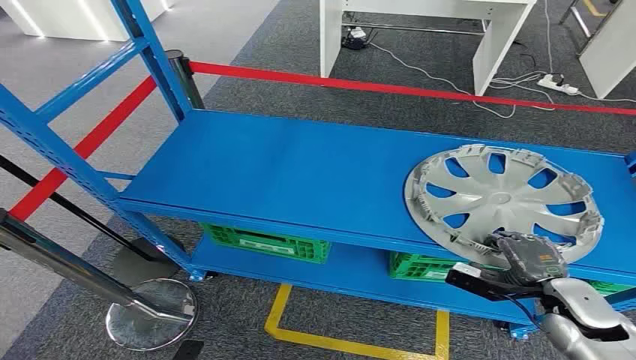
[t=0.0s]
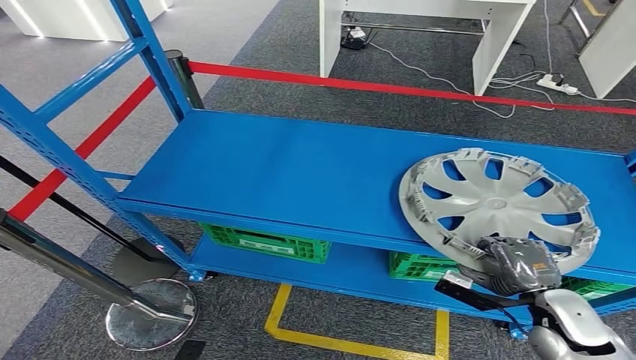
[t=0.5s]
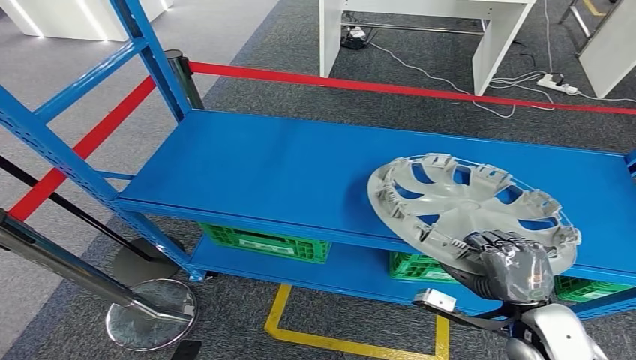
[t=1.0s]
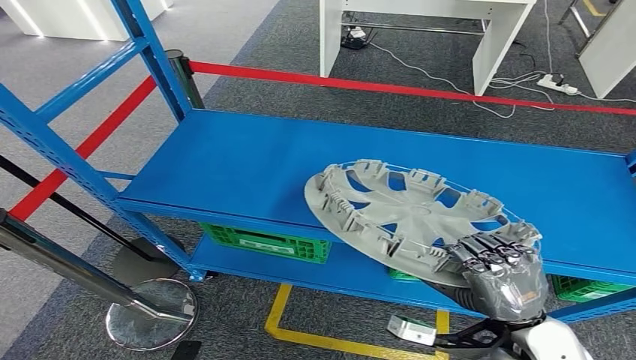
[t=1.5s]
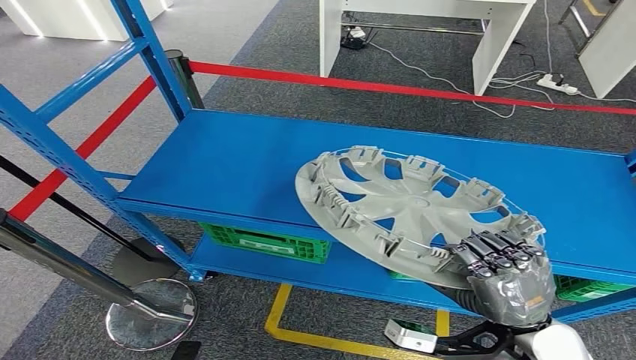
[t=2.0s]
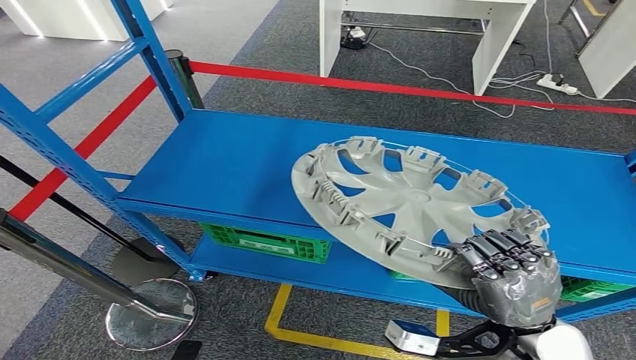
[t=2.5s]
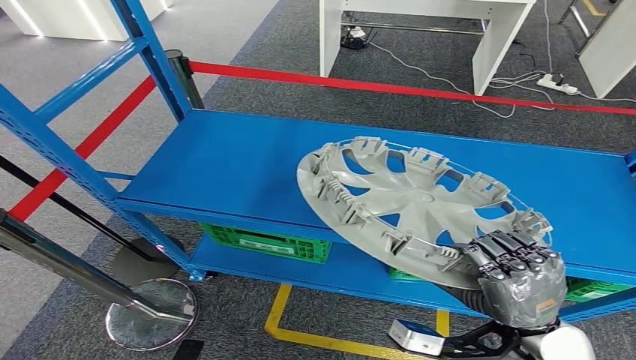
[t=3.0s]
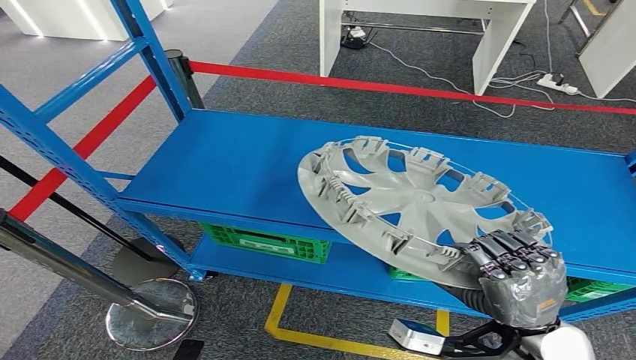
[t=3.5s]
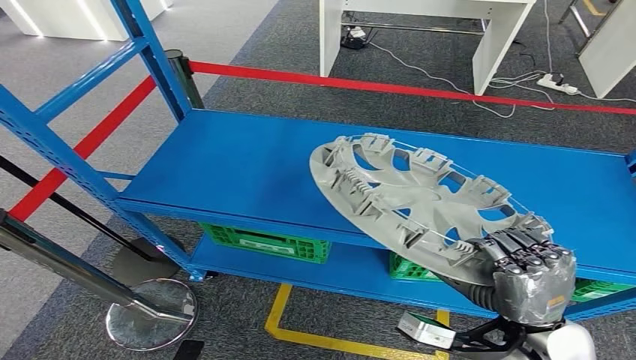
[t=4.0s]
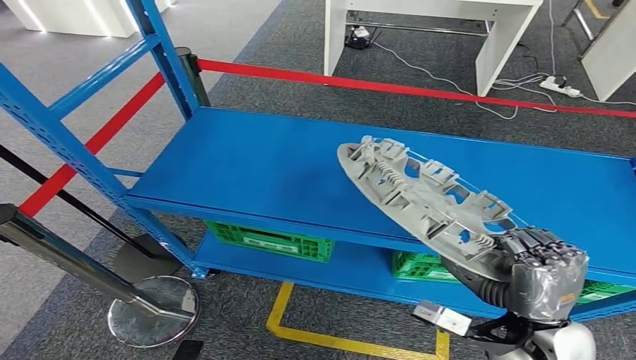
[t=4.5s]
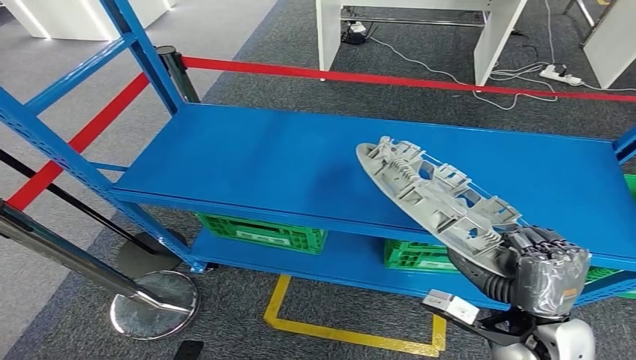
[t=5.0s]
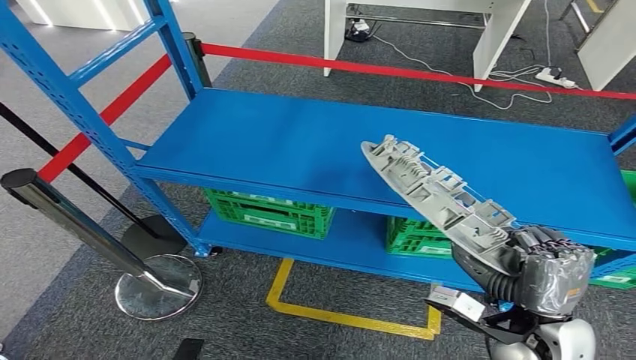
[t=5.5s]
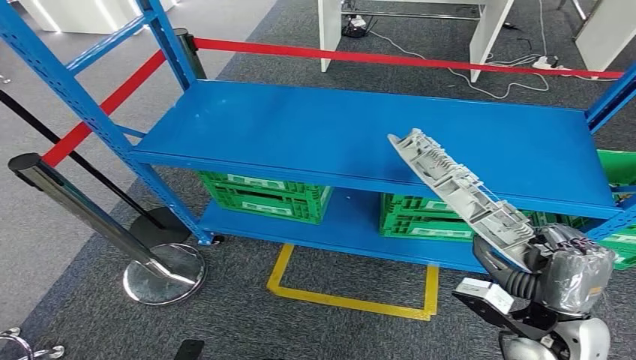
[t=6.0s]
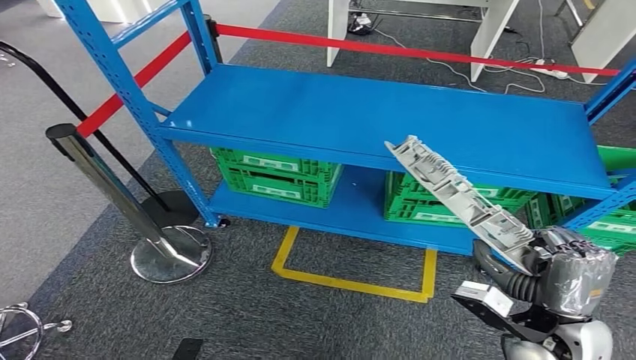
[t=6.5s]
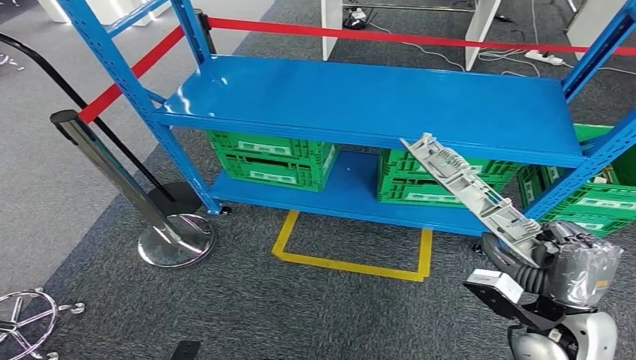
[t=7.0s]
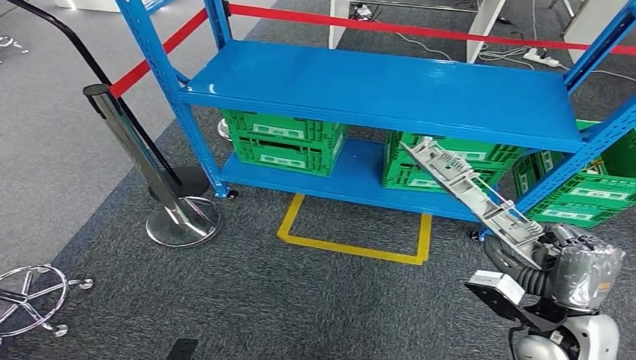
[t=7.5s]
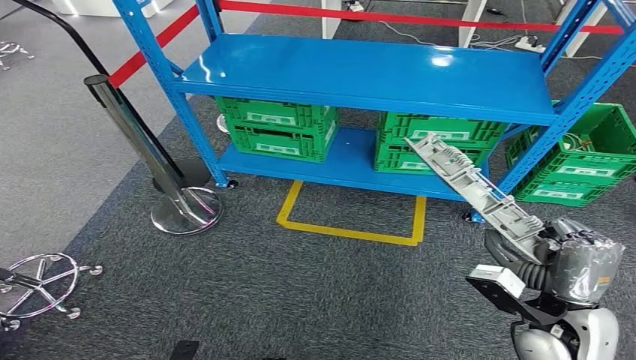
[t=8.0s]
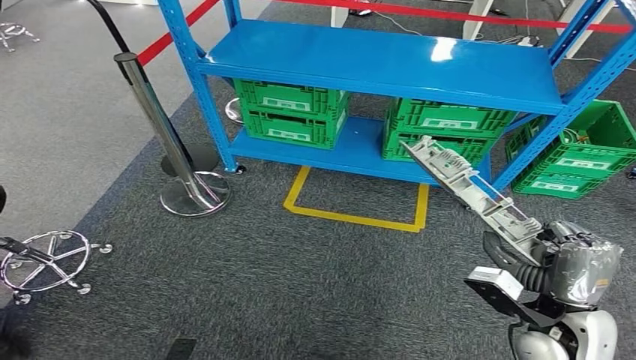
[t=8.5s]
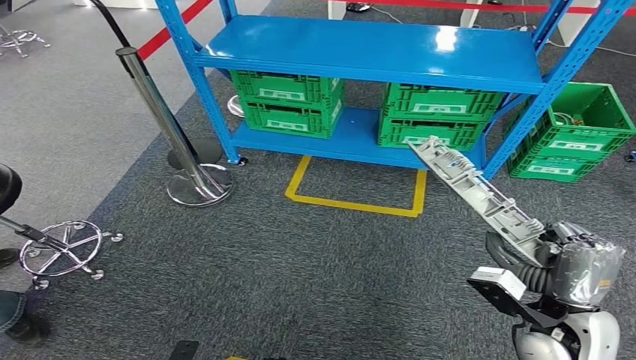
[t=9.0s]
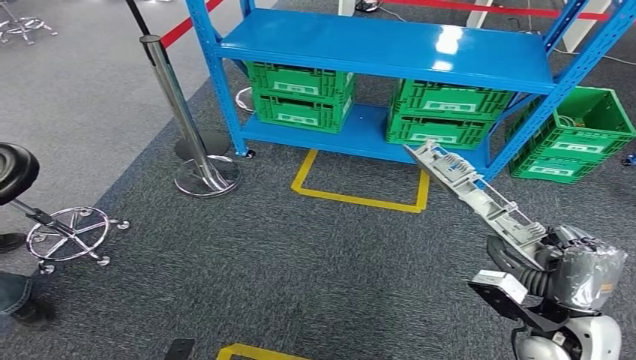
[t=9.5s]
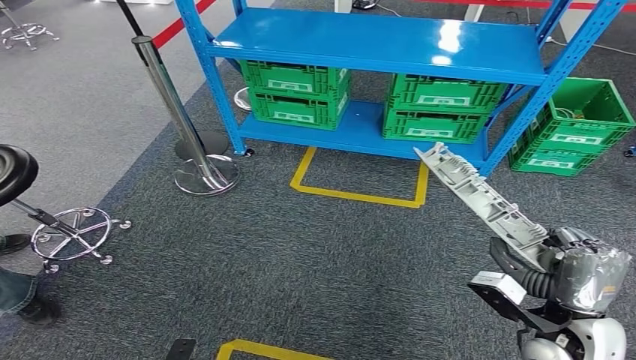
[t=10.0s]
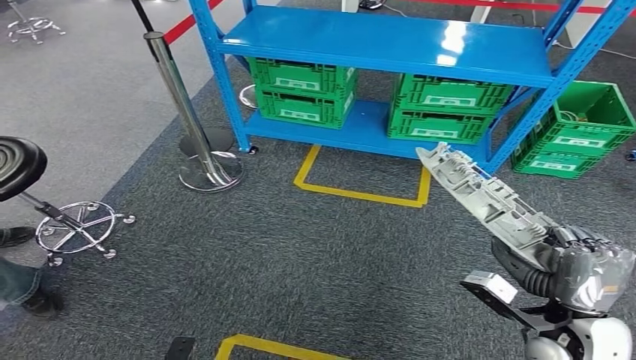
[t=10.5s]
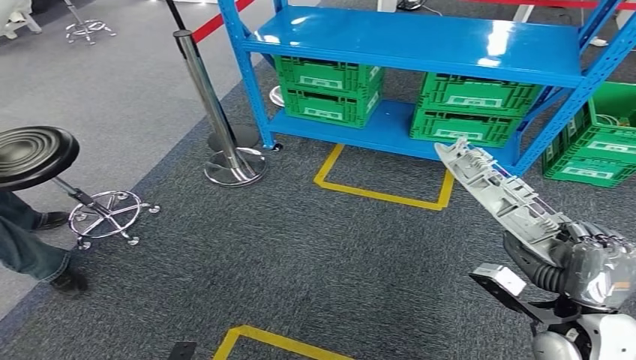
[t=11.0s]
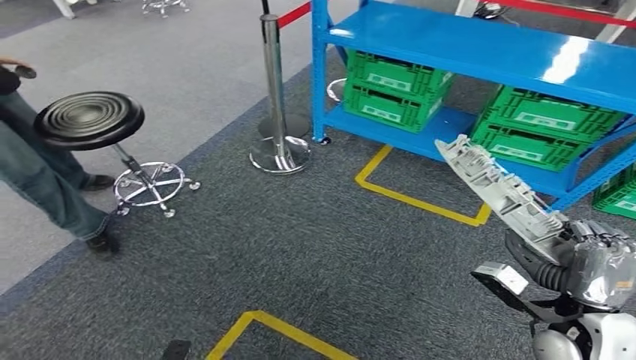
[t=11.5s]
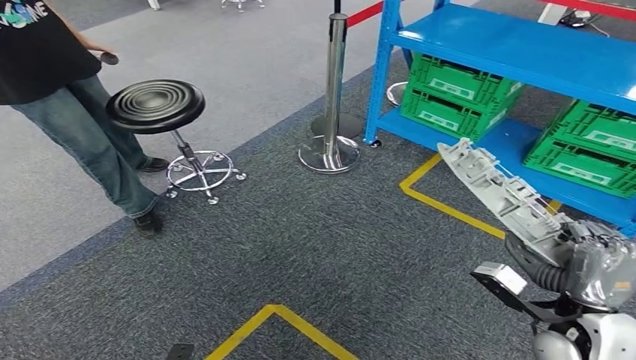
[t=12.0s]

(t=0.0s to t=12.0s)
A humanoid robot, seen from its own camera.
Step, t=0.0s - t=4.5s: Pick up the small component from the shelf.
t=2.0s - t=4.0s: The hands move only a little.

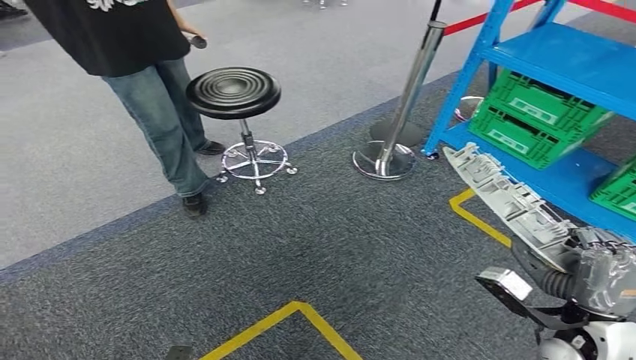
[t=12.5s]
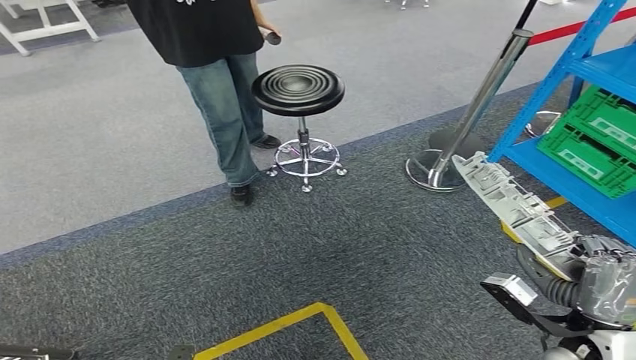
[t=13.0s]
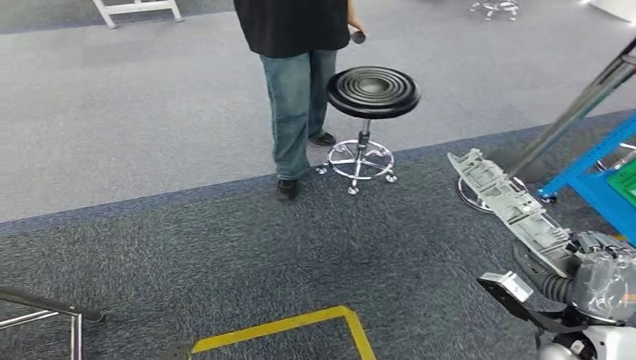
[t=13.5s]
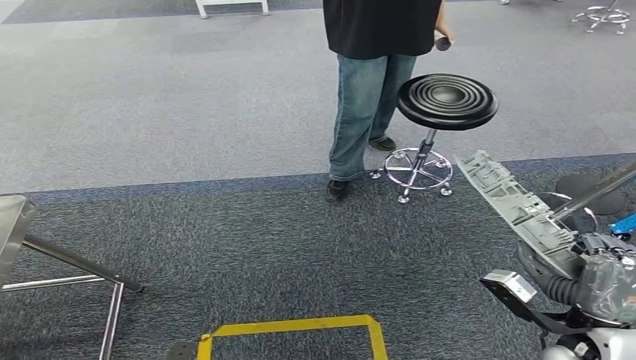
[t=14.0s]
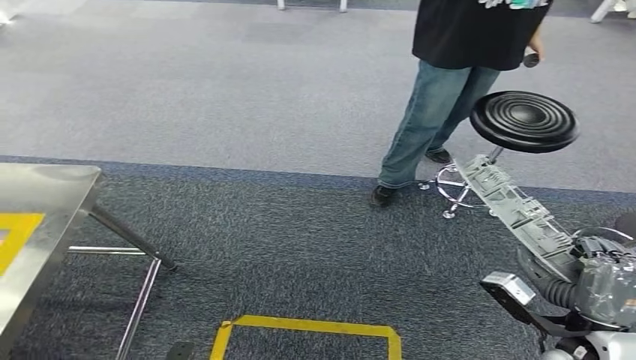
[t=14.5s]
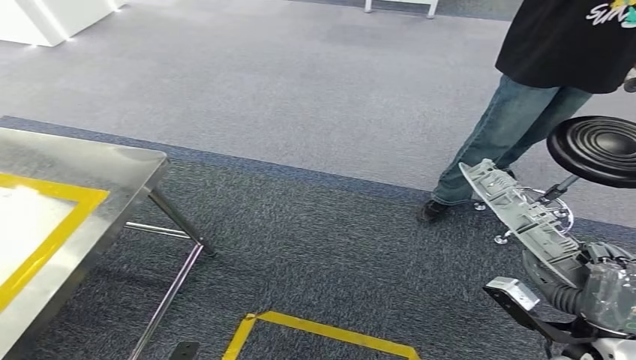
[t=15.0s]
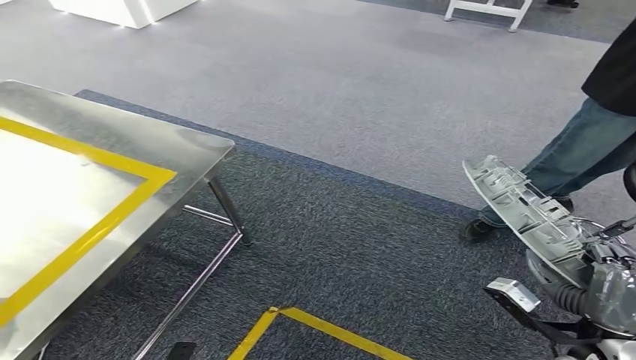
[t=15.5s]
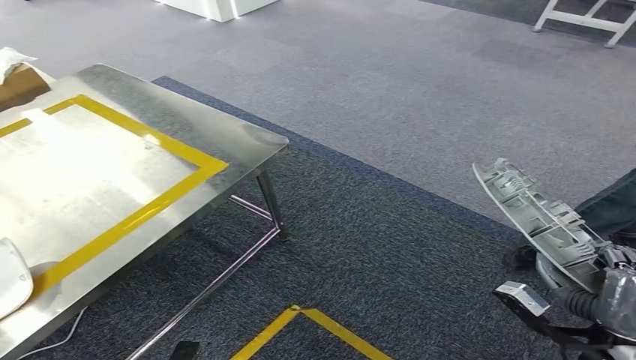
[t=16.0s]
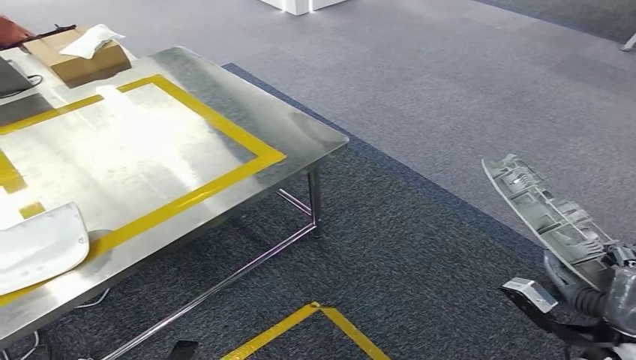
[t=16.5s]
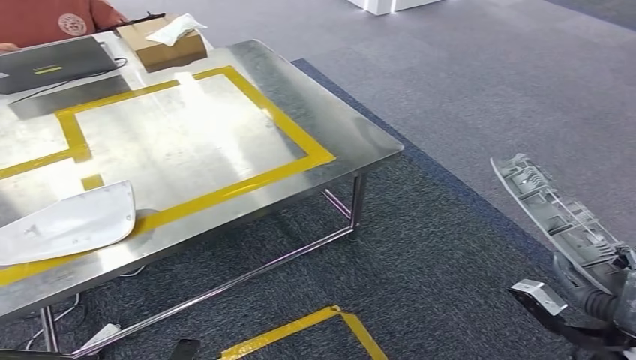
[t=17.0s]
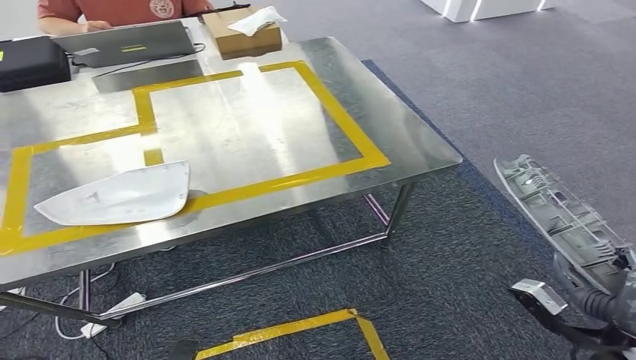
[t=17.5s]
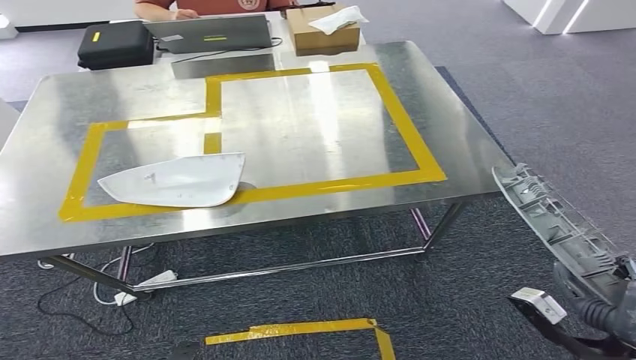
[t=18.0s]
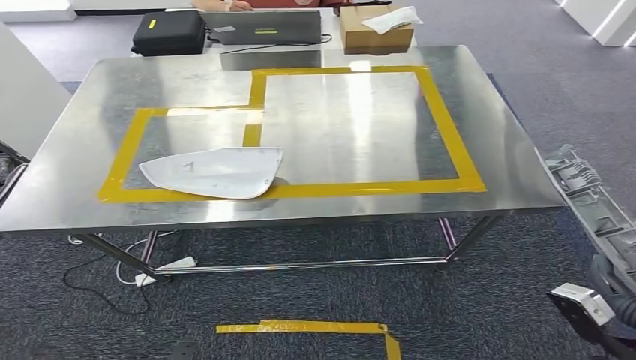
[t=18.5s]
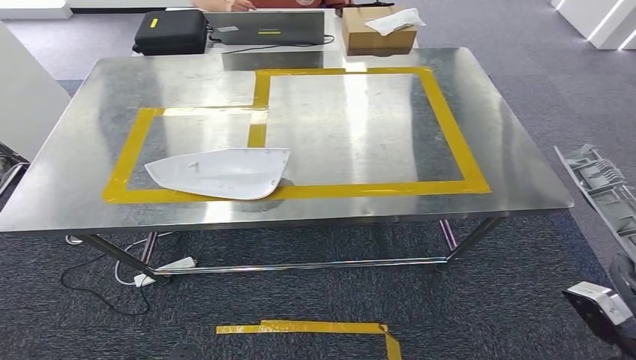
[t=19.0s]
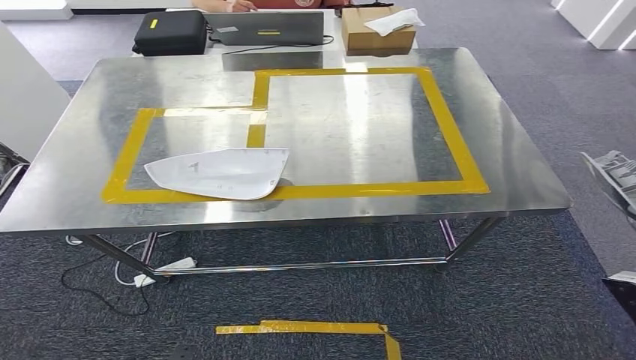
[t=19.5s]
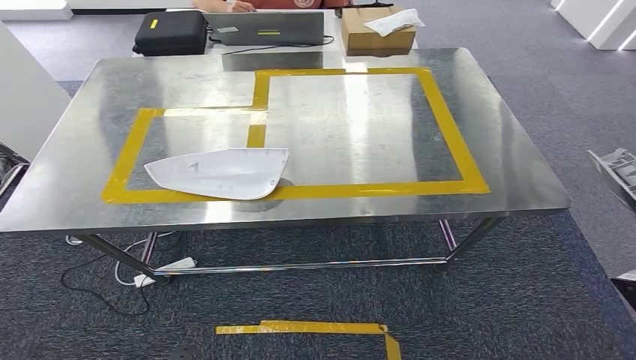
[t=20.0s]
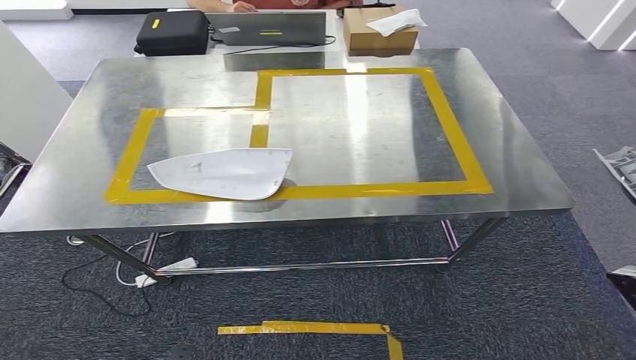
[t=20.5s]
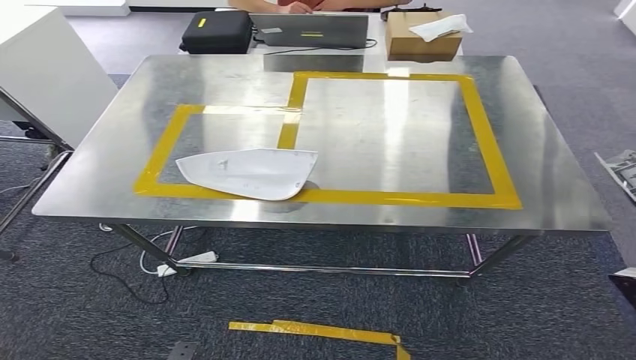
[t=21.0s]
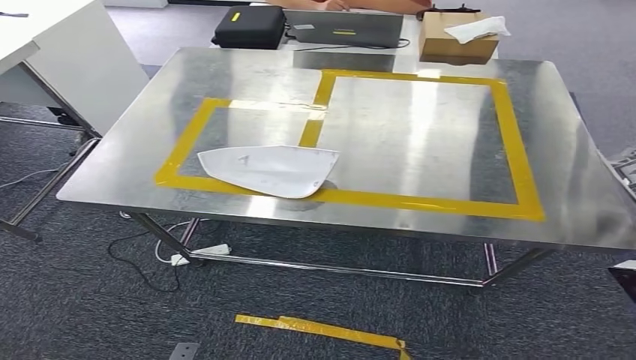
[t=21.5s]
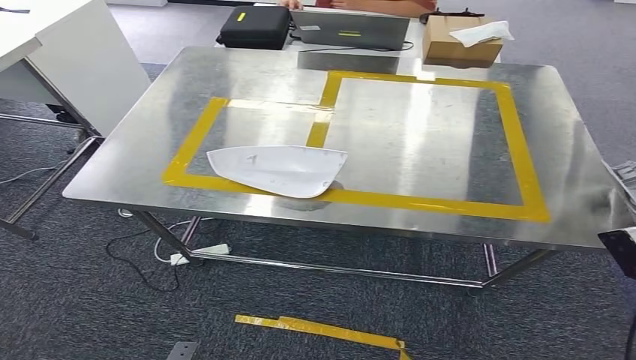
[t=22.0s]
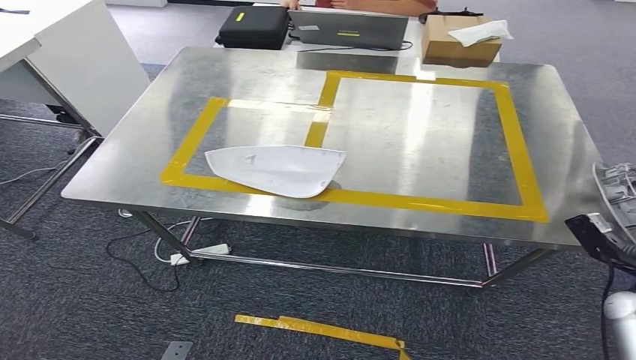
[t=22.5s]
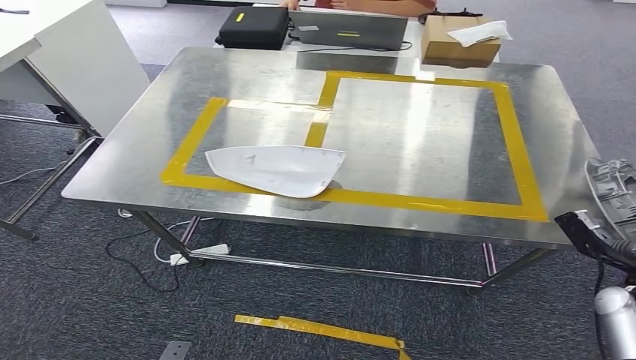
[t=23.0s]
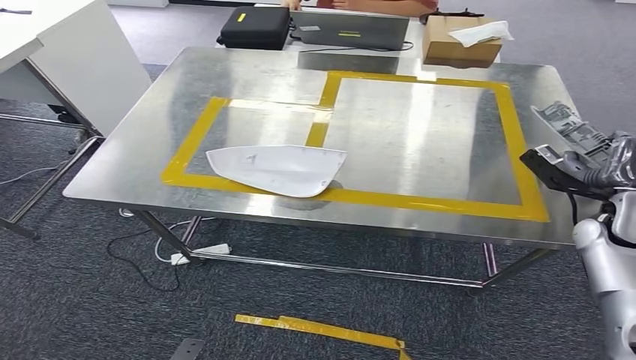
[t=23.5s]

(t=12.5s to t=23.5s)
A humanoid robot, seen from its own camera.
t=21.5s - t=23.5s: The right hand travels forward by some 20 cm.
